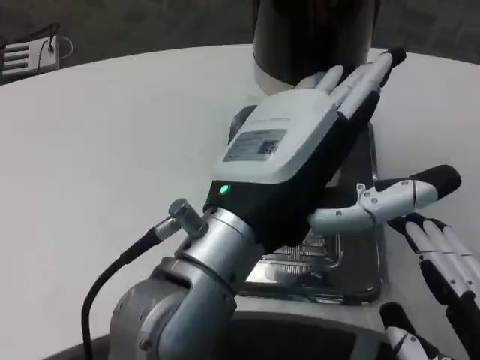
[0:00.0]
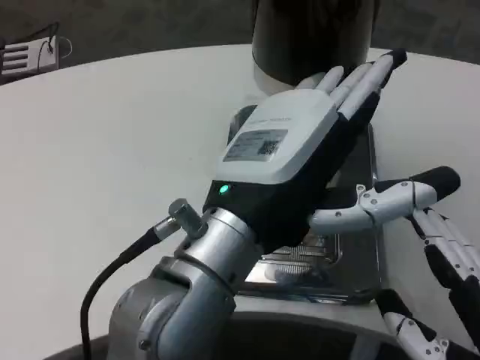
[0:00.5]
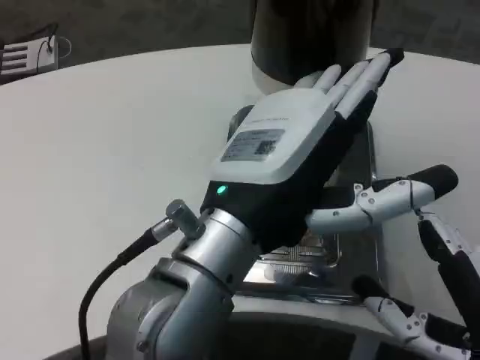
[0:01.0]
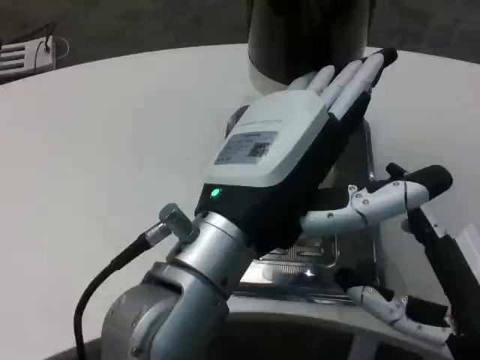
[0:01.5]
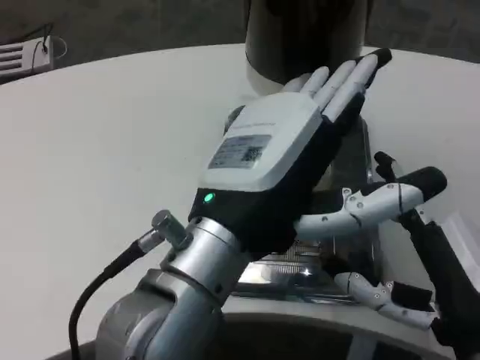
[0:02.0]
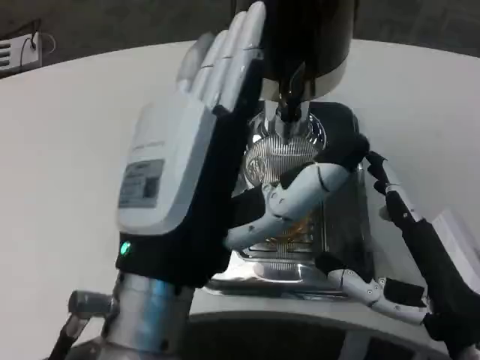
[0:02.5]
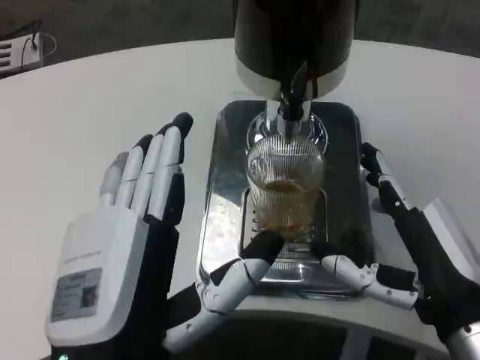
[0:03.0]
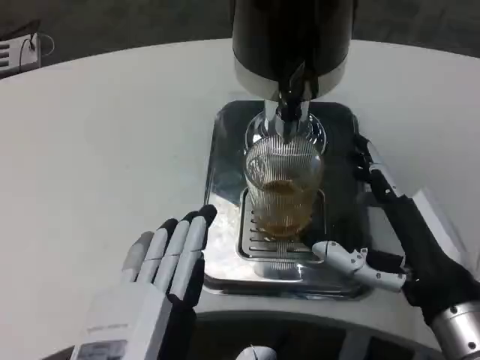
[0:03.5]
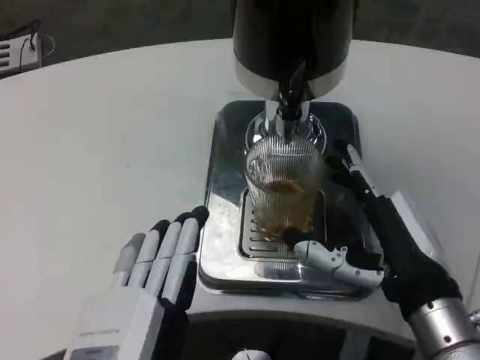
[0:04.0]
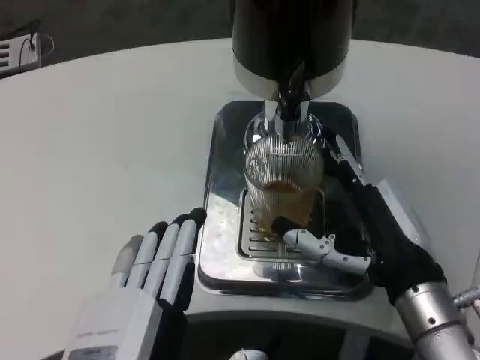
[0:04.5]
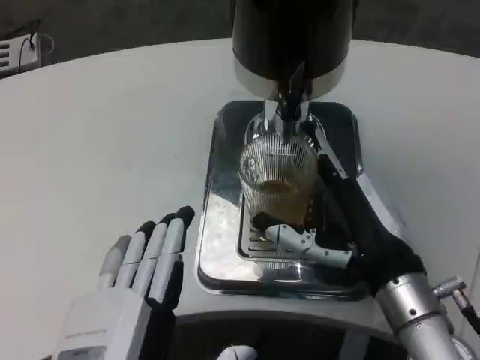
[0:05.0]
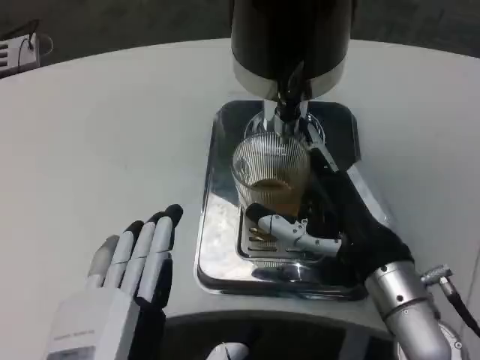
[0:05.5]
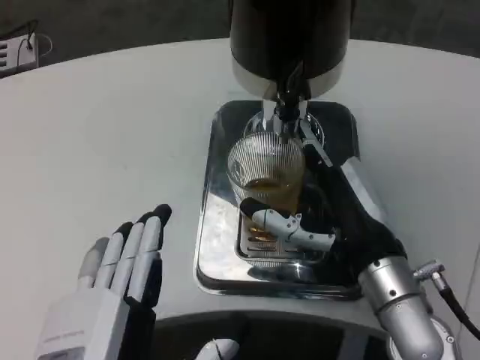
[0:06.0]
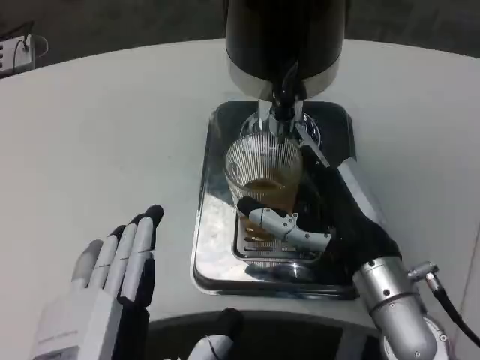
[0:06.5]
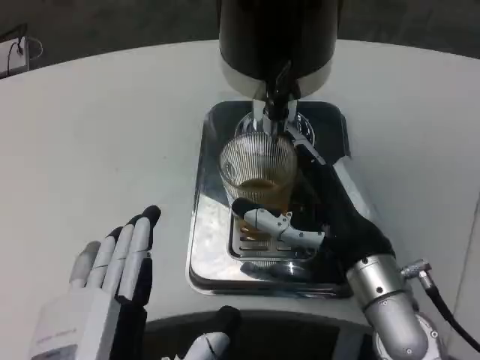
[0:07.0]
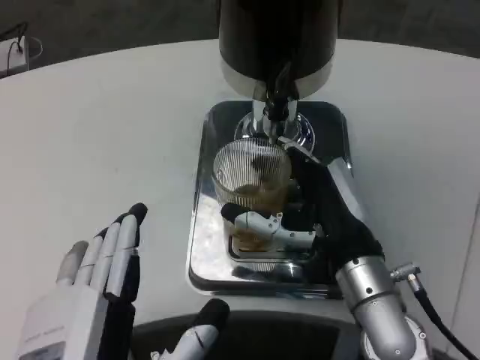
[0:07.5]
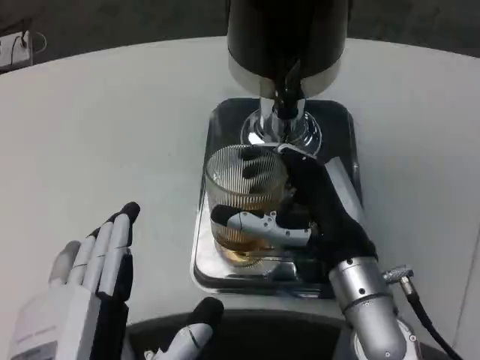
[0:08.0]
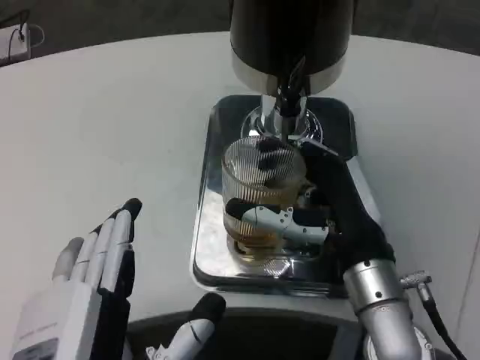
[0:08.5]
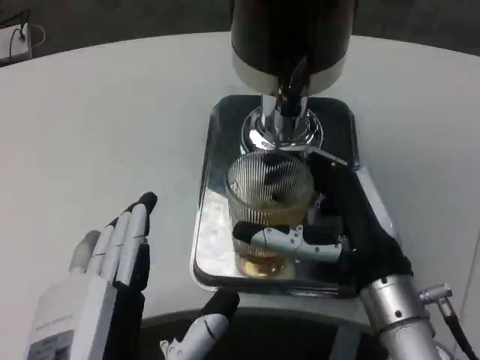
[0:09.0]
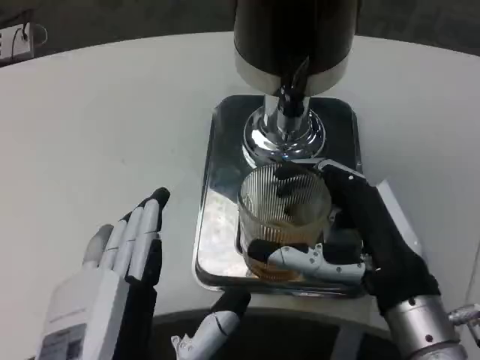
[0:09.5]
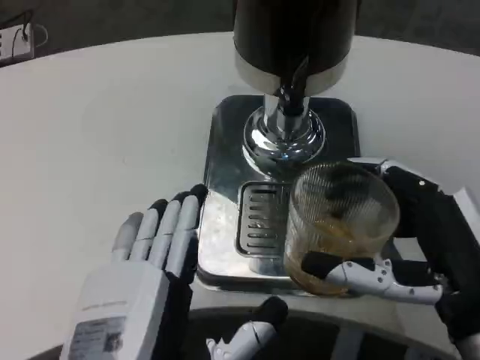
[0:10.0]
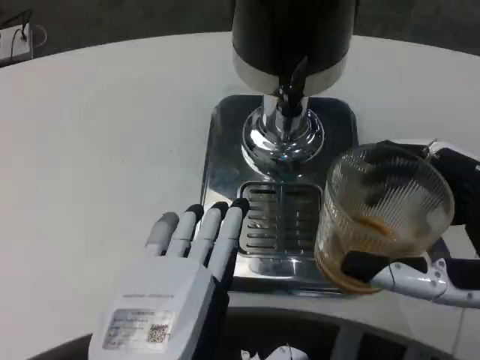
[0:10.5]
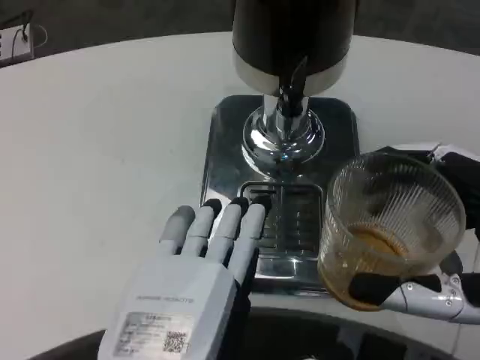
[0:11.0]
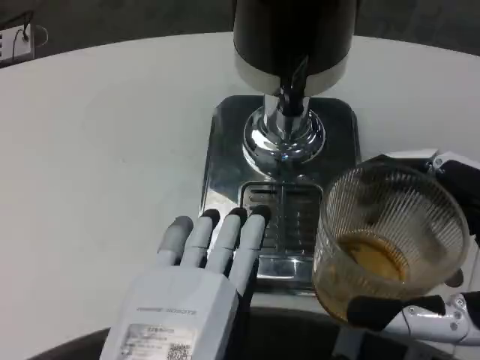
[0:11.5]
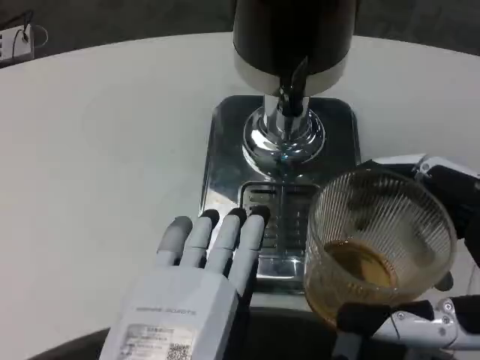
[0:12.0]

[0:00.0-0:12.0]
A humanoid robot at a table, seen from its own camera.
Task of the whole recording: Grasp the cup under the faucet to collect the drink, then remove the cup.
0:00.0 to 0:02.0: The right hand moves forward, approximately 5 cm.
0:02.0 to 0:04.0: The right hand heads forward, covering roughly 5 cm. The left hand goes approximately 15 cm downward, backward and to the left.
0:04.0 to 0:06.0: The right hand changes place by about 5 cm.
0:08.0 to 0:10.0: The right hand shifts about 15 cm backward and to the right.
0:10.0 to 0:12.0: The right hand travels backward by approximately 5 cm.
